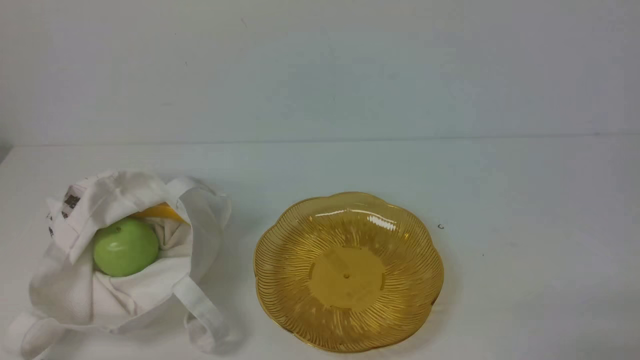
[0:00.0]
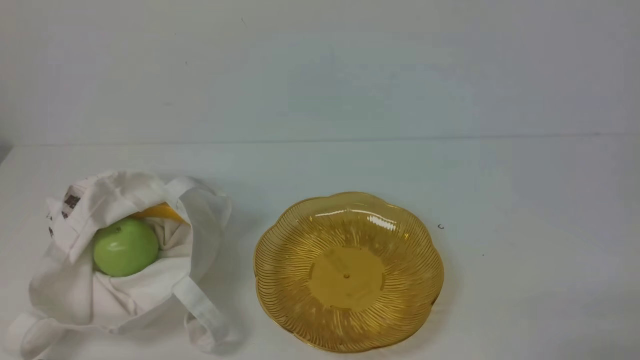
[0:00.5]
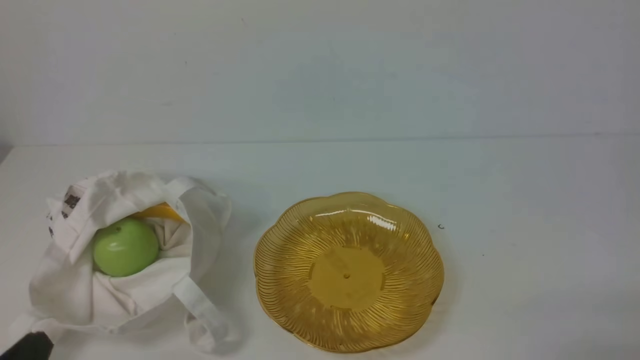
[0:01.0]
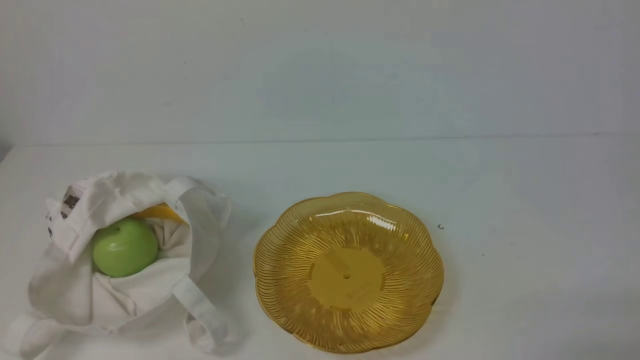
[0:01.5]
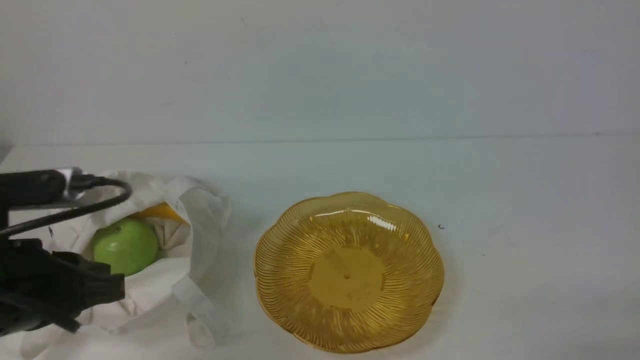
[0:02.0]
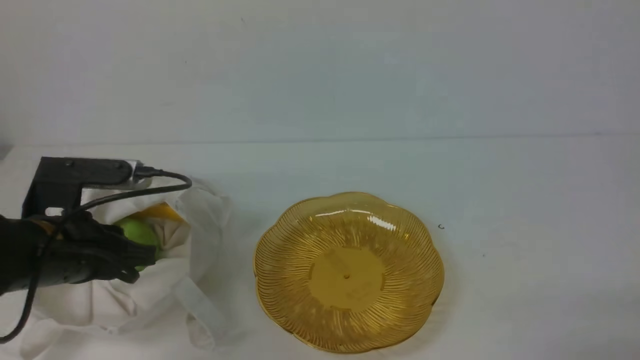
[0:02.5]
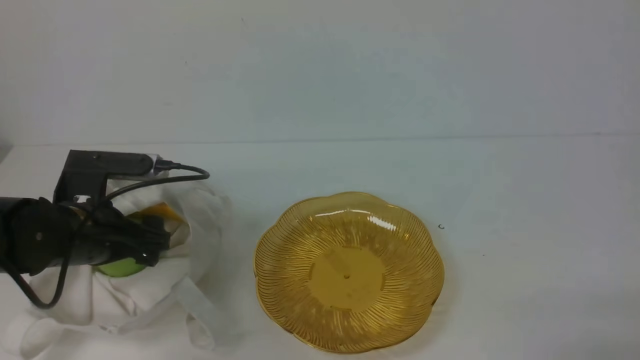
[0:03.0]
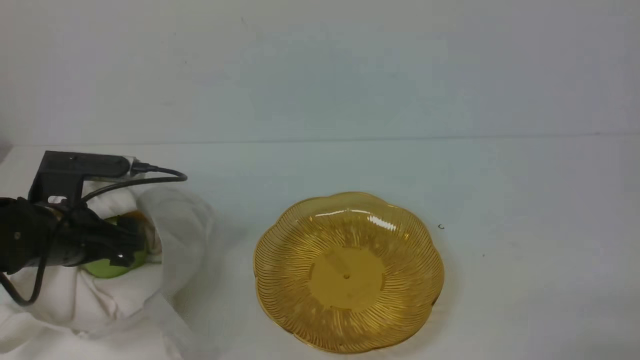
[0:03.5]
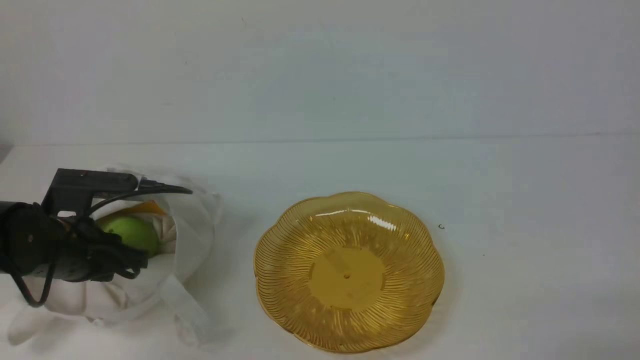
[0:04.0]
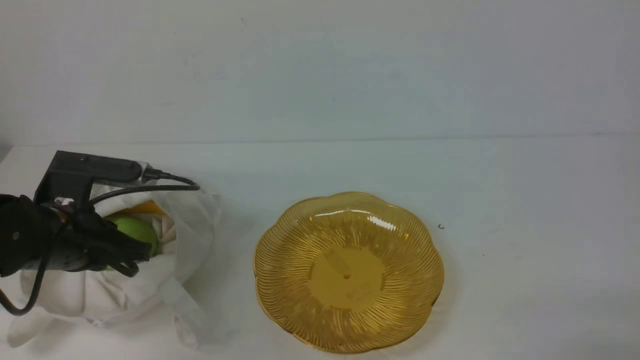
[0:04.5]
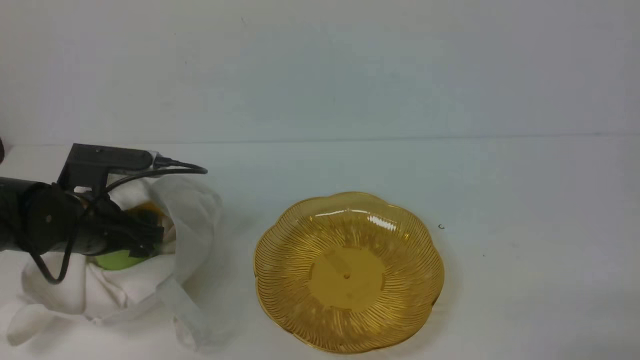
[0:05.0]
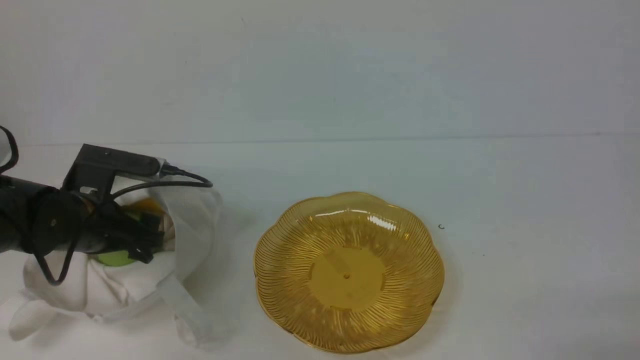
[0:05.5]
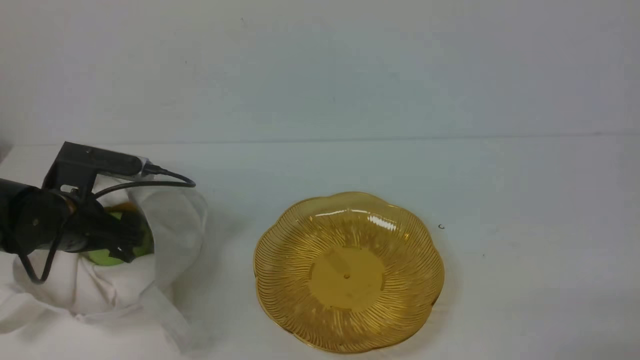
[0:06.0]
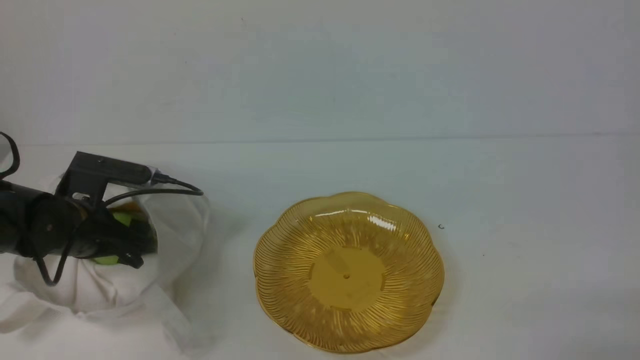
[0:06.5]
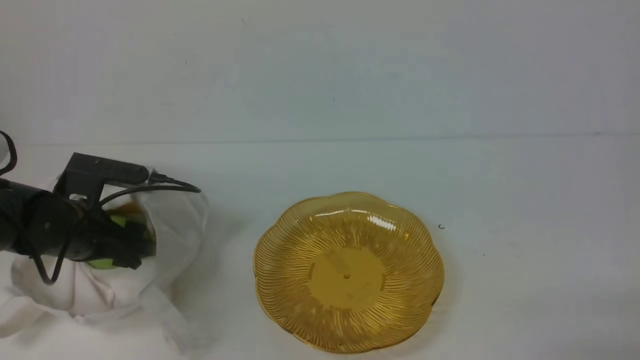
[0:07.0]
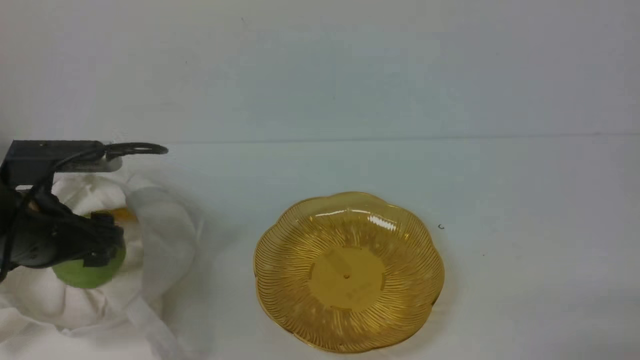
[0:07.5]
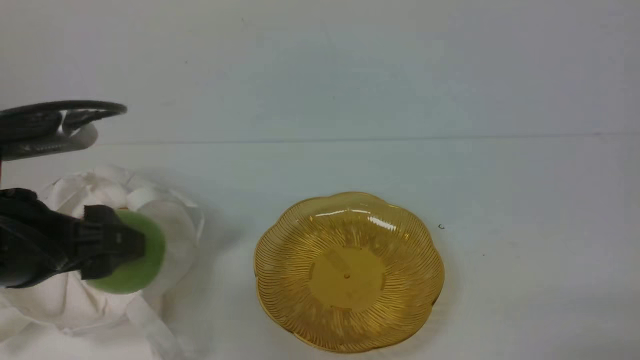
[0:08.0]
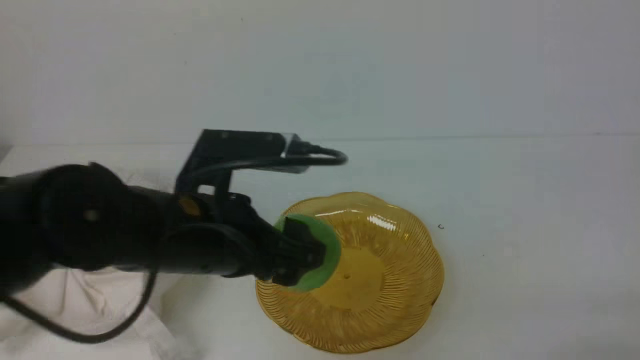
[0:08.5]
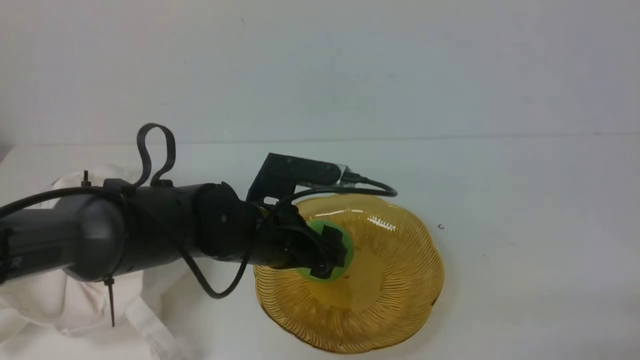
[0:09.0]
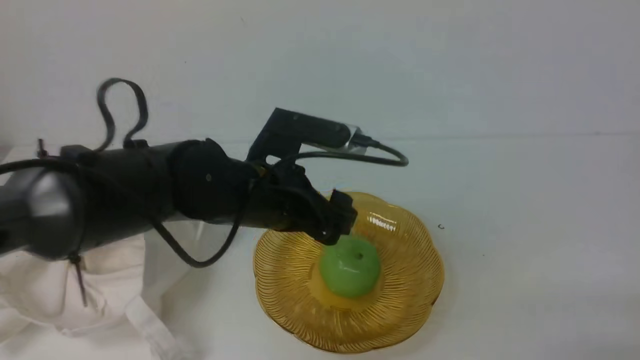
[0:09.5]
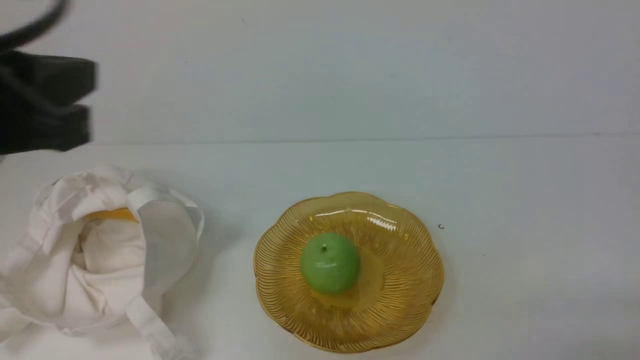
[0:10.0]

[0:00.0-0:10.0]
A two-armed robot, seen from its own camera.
Step, 0:00.0 to 0:07.0: use the left arm to grab an apple from the bag.
Step, 0:07.5 to 0:09.5: use the left arm to put the apple into the empty plate on the right.
0:00.0 to 0:02.0: The left gripper is displaced forward and upward by roughly 15 cm.
0:02.0 to 0:04.0: The left gripper moves forward and downward, about 15 cm, and opens and closes again.
0:04.0 to 0:06.0: The left gripper opens its fingers.
0:06.0 to 0:08.0: The left gripper shifts roughly 20 cm upward, backward and to the right.
0:08.0 to 0:10.0: The left gripper goes about 10 cm upward, and closes up.

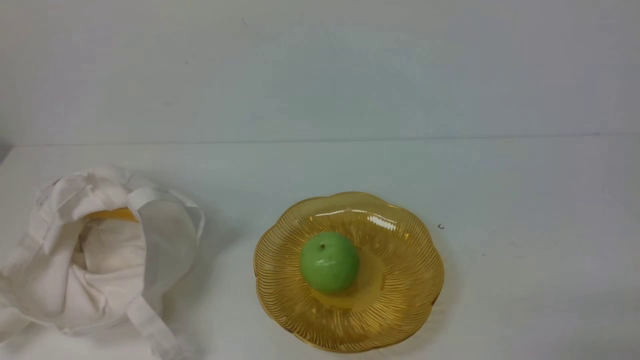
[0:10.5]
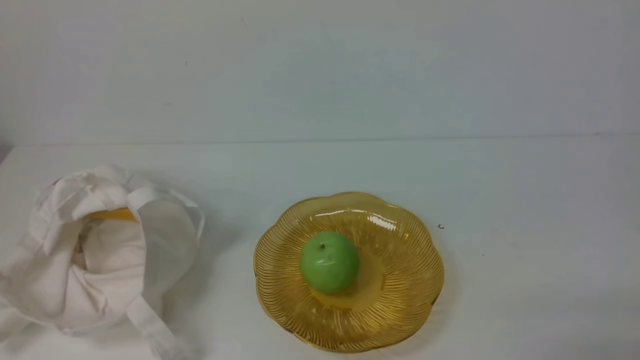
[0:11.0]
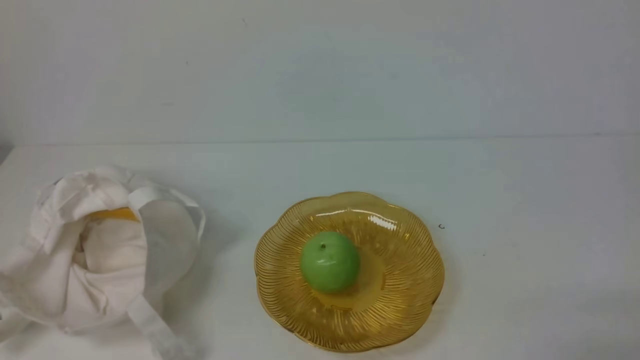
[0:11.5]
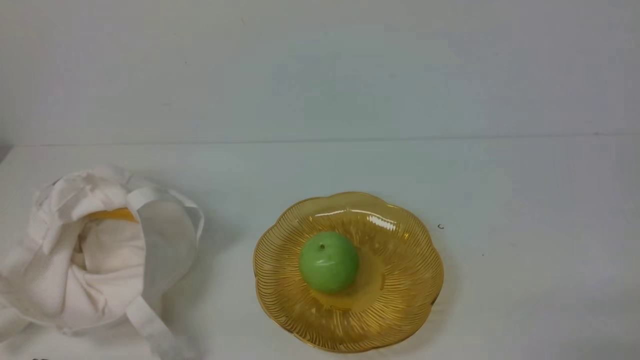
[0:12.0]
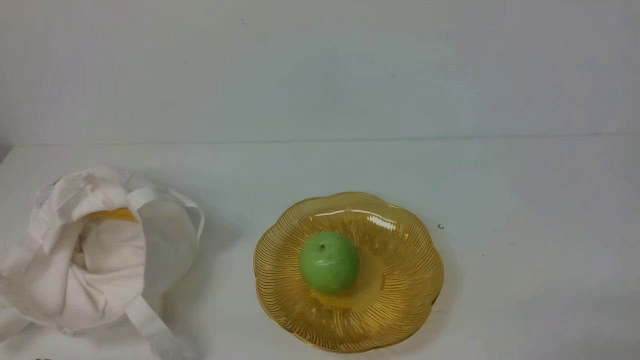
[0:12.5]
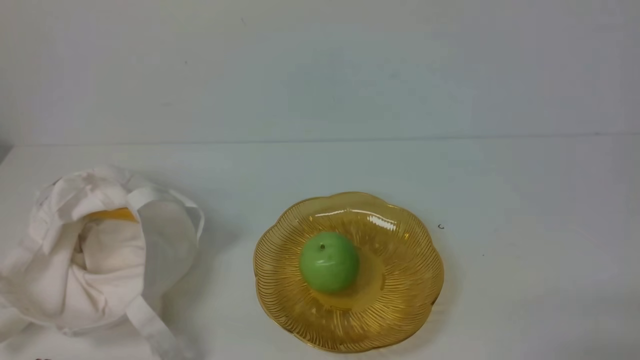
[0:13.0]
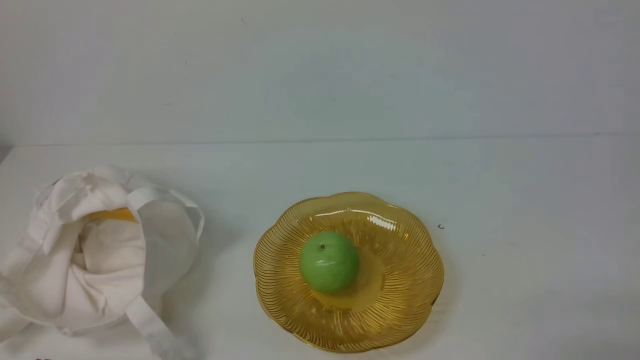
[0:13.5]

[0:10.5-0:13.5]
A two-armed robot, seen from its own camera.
0:12.0 to 0:13.5: Both grippers stay about where they are.
